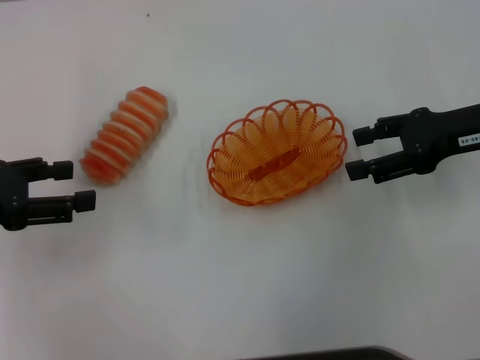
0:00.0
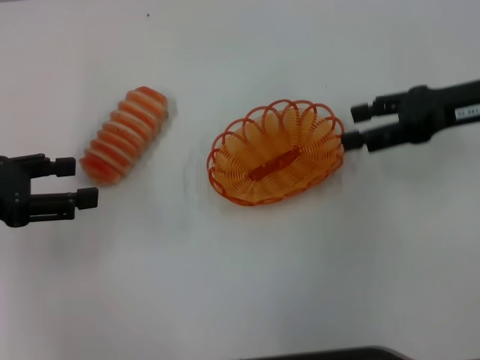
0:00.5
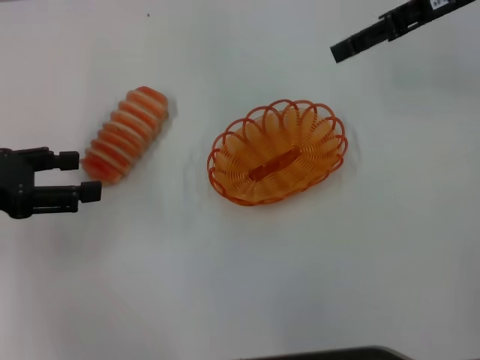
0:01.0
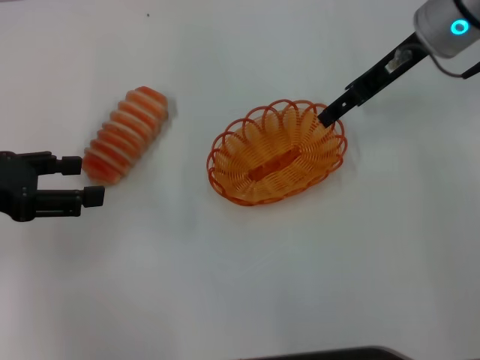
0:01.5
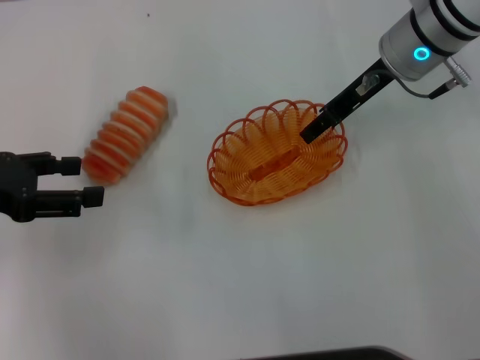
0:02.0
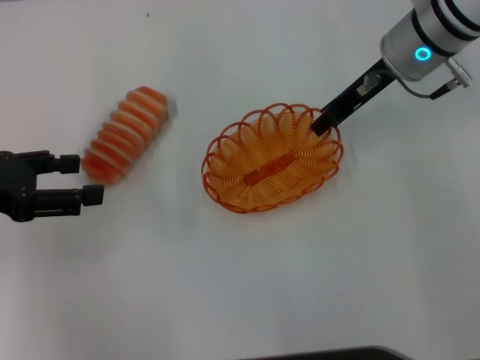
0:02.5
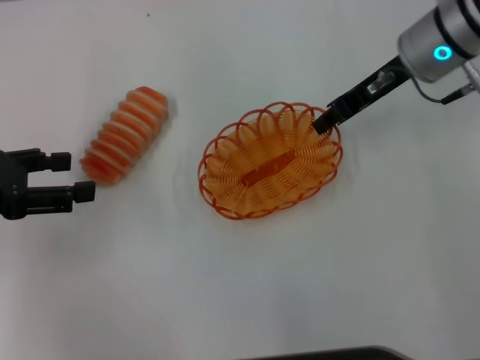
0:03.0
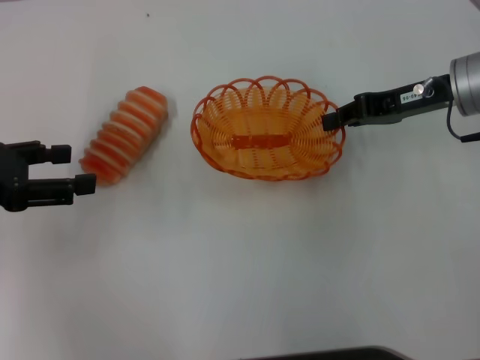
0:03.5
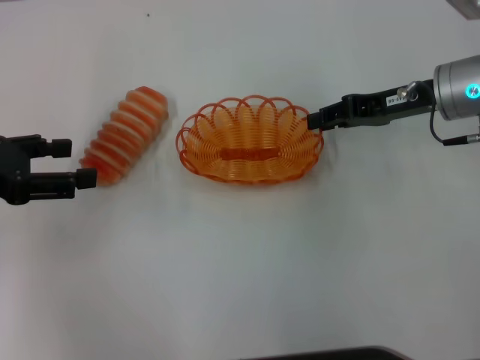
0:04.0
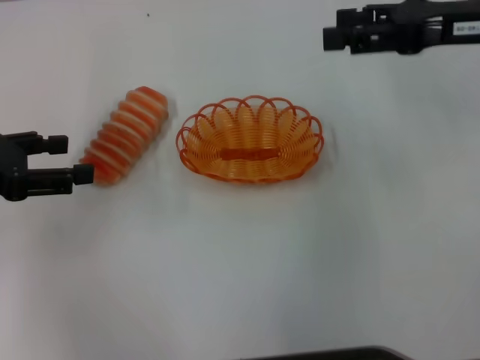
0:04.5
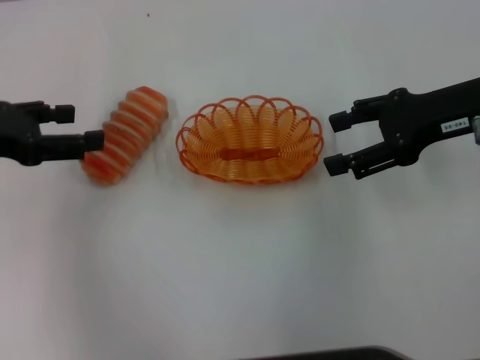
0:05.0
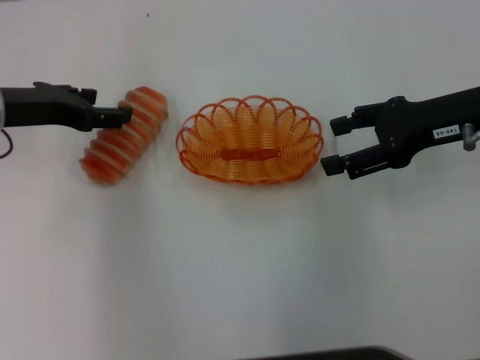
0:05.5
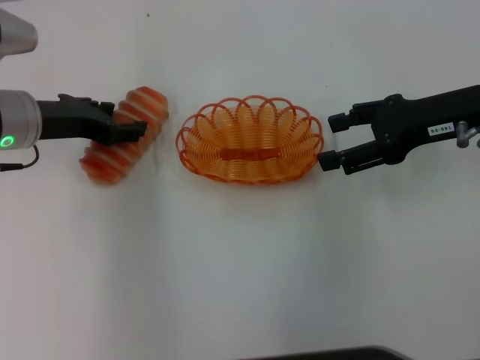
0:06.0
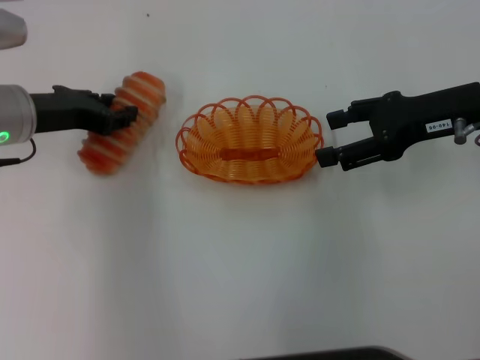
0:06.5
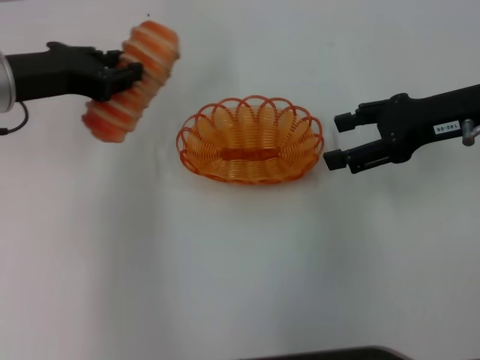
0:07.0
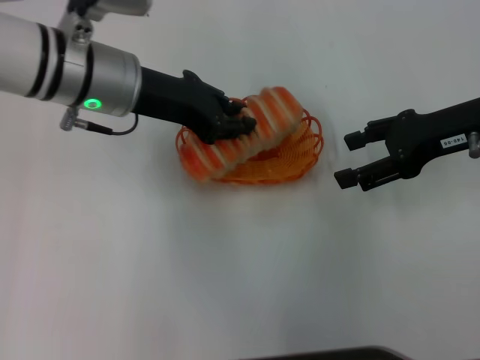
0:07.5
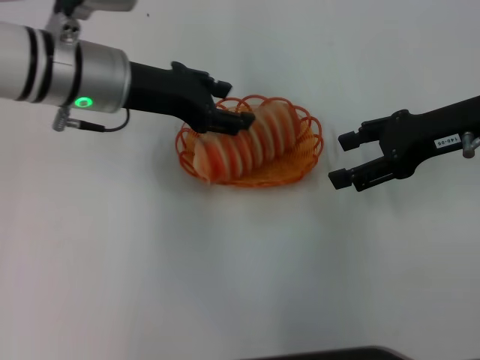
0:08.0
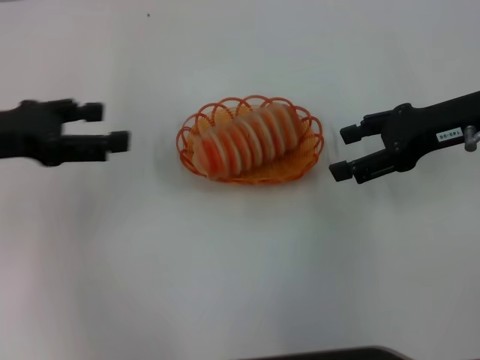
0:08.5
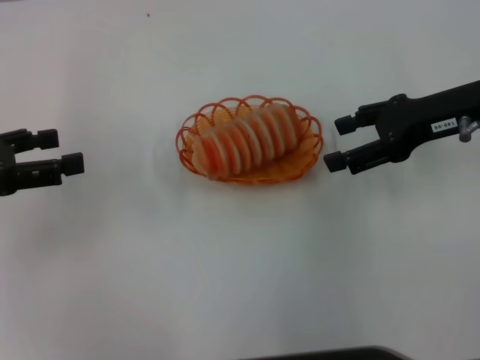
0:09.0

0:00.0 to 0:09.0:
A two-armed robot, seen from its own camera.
Step, 0:00.0 to 0:03.0: Pick up the basket with the right gripper.
Step, 0:03.5 to 0:04.0: Place the basket in the center of view with the right gripper.
Step, 0:04.5 to 0:06.5: Pick up the long bread with the left gripper.
Step, 0:07.0 to 0:07.5: Place the long bread into the basket with the left gripper.
0:00.0 to 0:02.0: The right gripper travels to the left and forward by about 15 cm.
0:02.0 to 0:04.5: The right gripper shifts some 10 cm to the right and backward, and closes and opens again.
0:04.5 to 0:07.0: The left gripper goes about 10 cm to the right and forward, and closes its fingers, while the right gripper heads downward, covering approximately 5 cm, and opens.
0:07.0 to 0:09.0: The left gripper heads to the left and backward, covering approximately 10 cm, and opens its fingers.

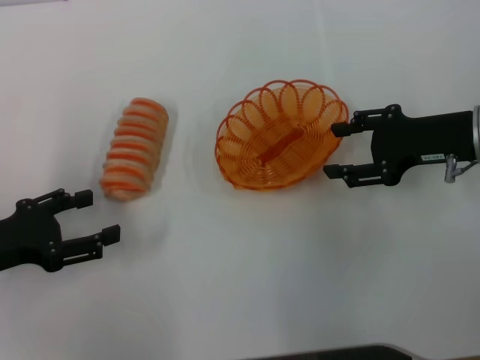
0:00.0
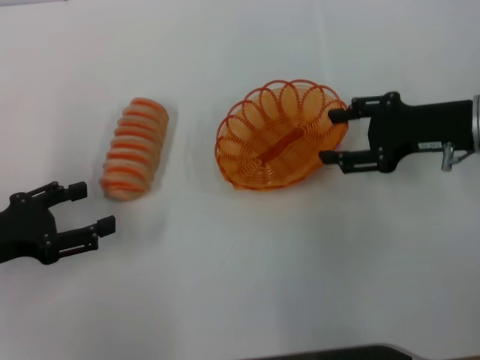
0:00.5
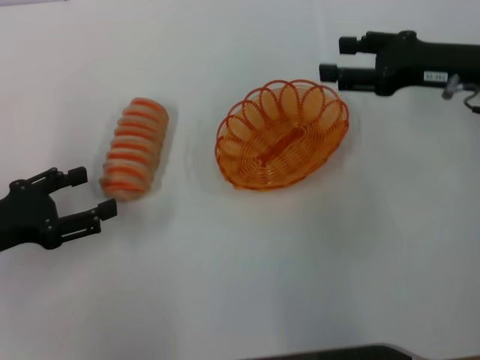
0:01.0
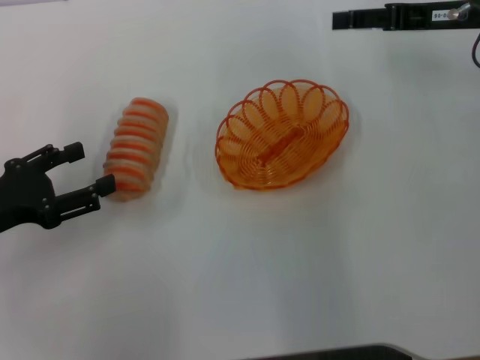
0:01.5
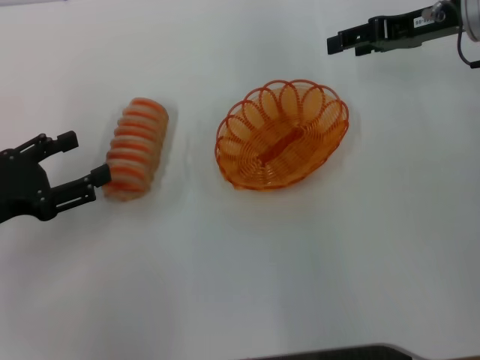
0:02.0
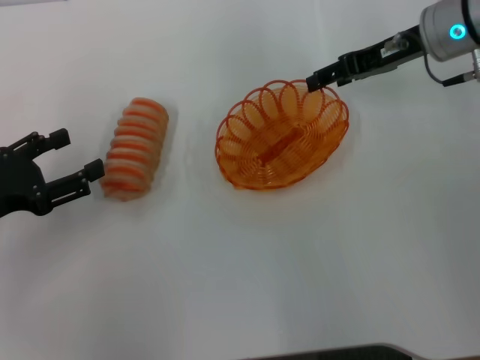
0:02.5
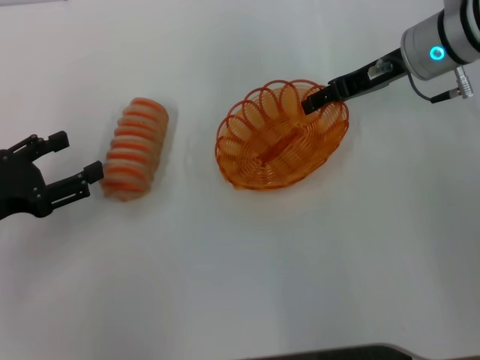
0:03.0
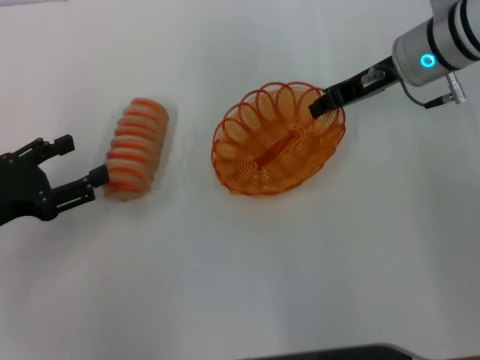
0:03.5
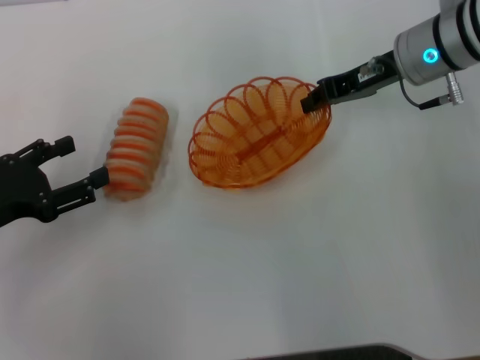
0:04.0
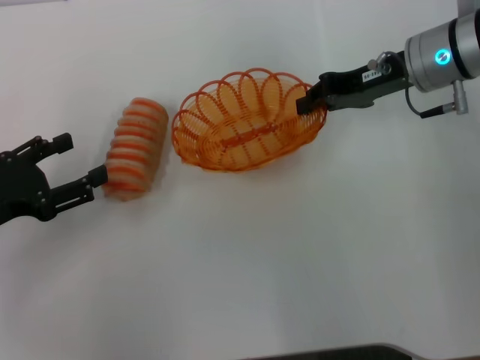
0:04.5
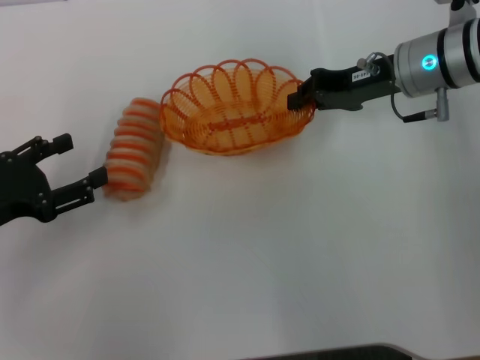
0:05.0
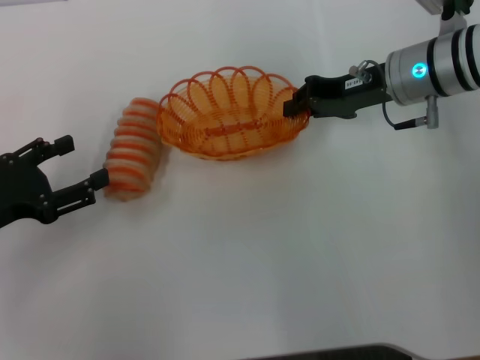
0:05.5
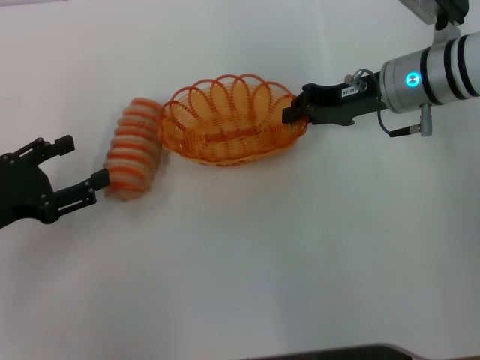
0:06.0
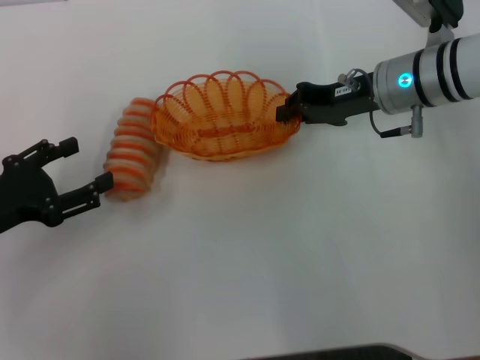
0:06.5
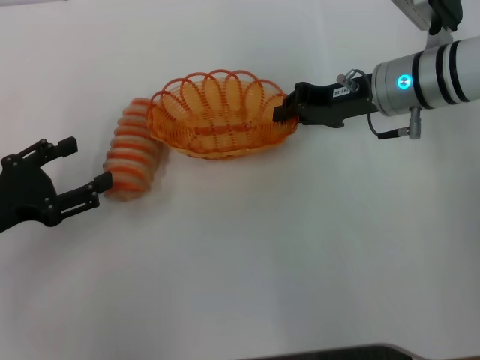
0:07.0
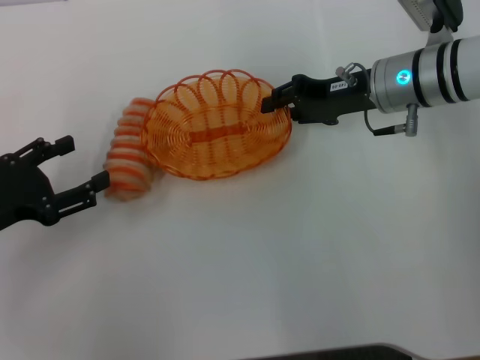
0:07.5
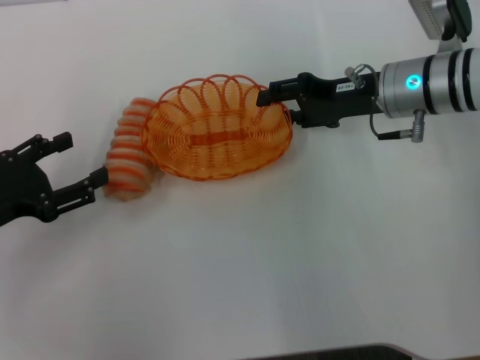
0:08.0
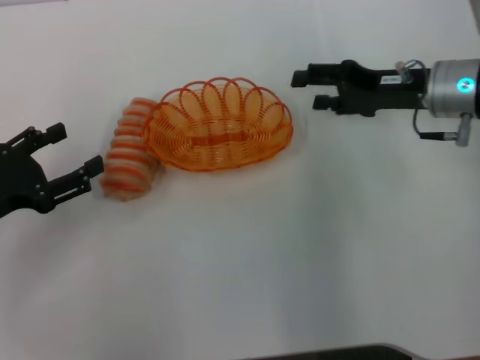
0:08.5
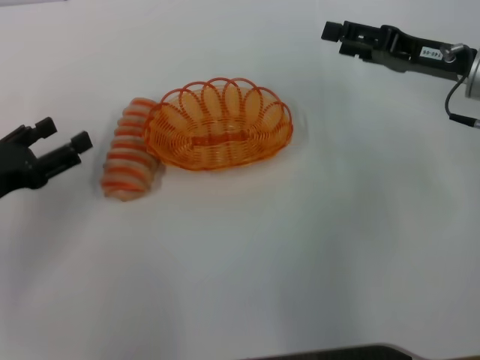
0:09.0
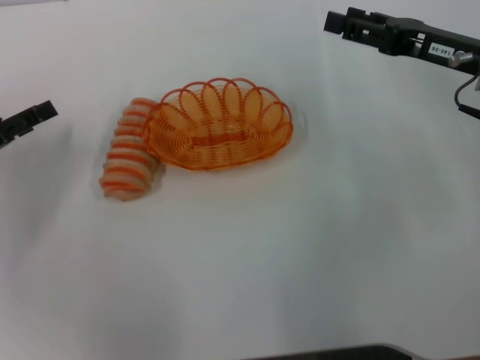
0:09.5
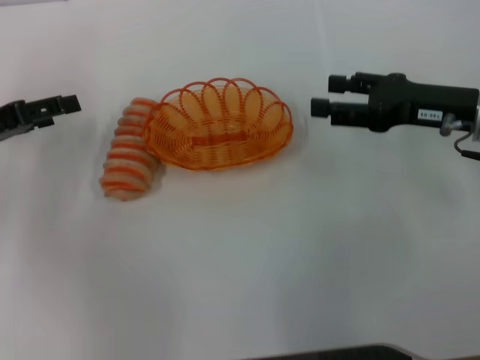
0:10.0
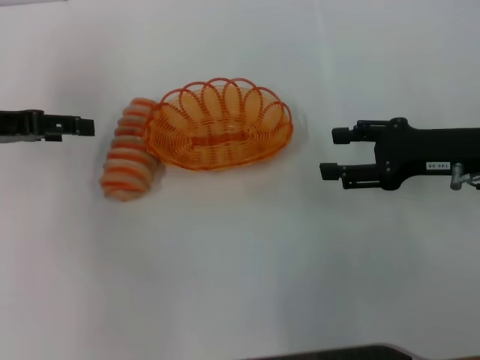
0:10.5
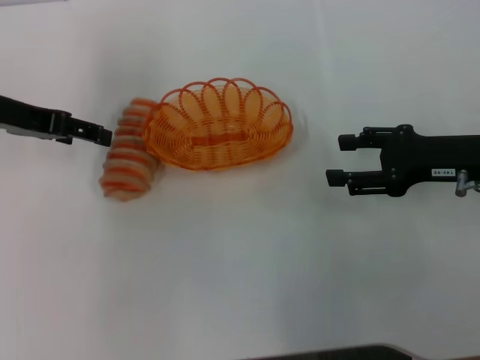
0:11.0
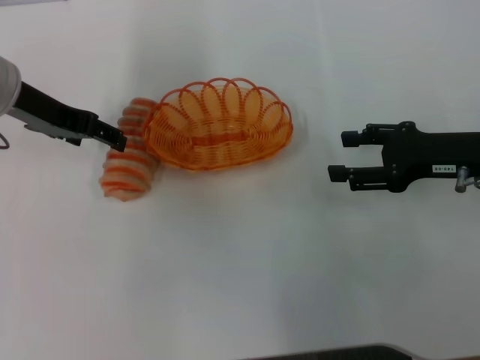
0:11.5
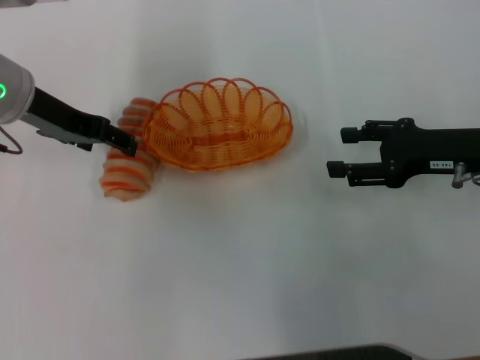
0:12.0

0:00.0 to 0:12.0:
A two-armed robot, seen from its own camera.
Step, 0:00.0 to 0:04.0: Pick up the basket with the right gripper.
Step, 0:04.5 to 0:08.5: Place the basket in the center of view with the right gripper.
0:00.0 to 0:02.0: The right gripper shifts roughly 10 cm forward and upward.
0:02.0 to 0:04.0: The right gripper moves to the left, approximately 5 cm, and closes up.
0:06.0 to 0:08.0: The right gripper opens up.
0:08.0 to 0:10.0: The left gripper goes some 10 cm forward. Meanwhile the right gripper is displaced to the right and backward by roughly 10 cm.
0:10.0 to 0:12.0: The left gripper shifts some 10 cm to the right and forward.

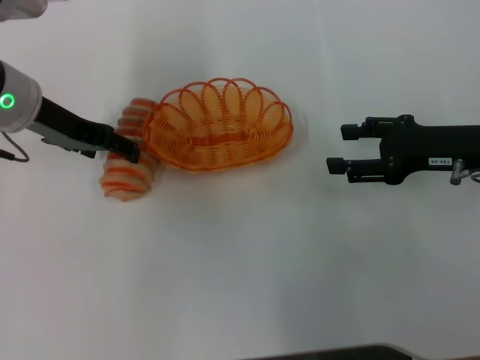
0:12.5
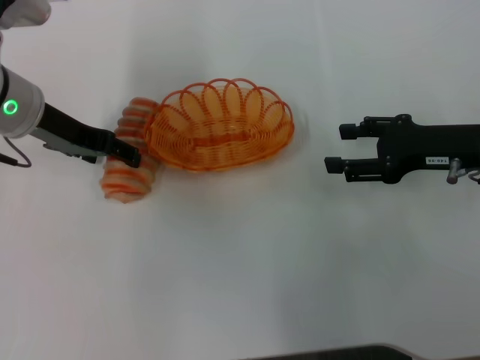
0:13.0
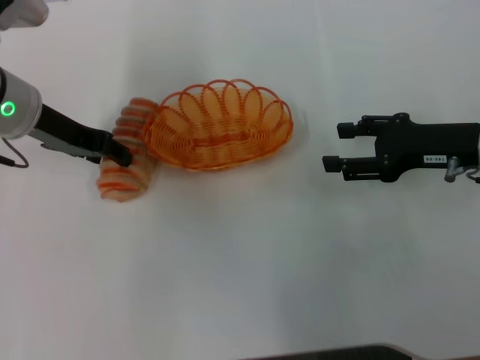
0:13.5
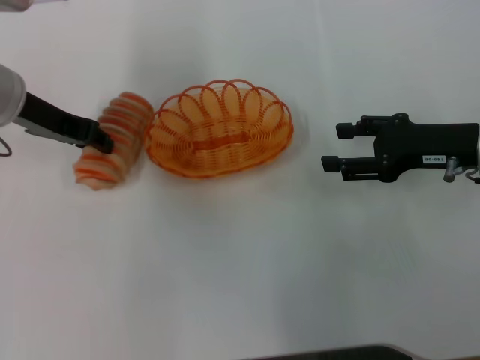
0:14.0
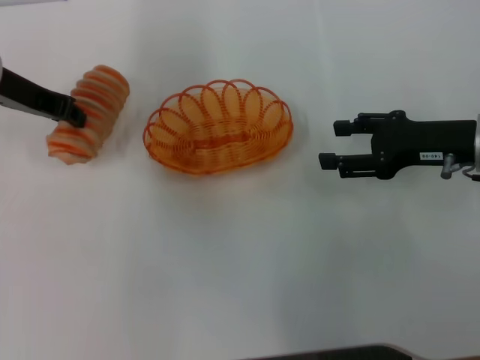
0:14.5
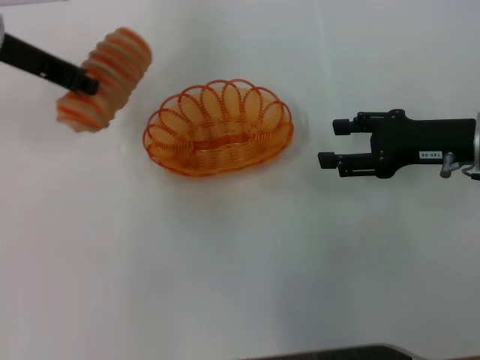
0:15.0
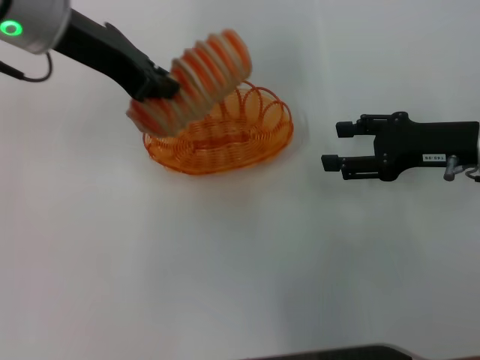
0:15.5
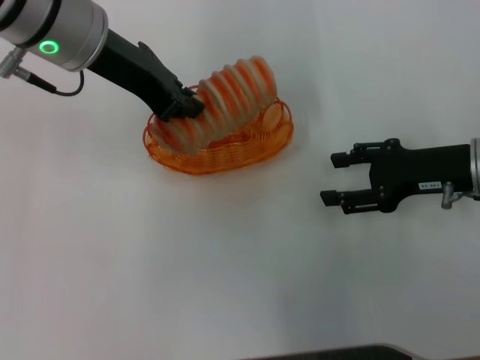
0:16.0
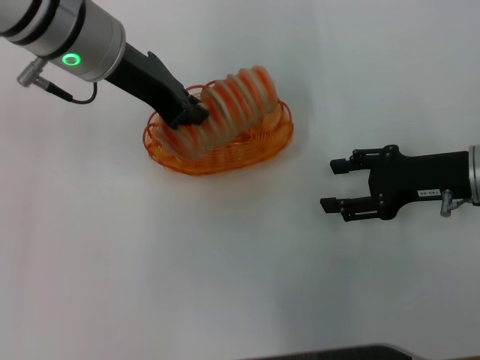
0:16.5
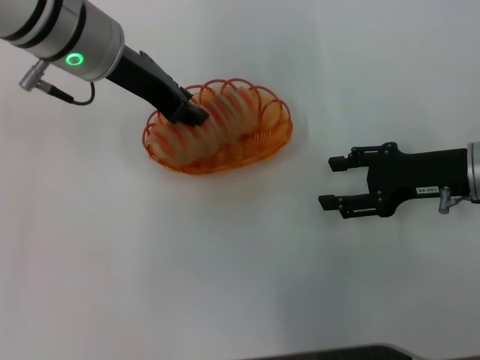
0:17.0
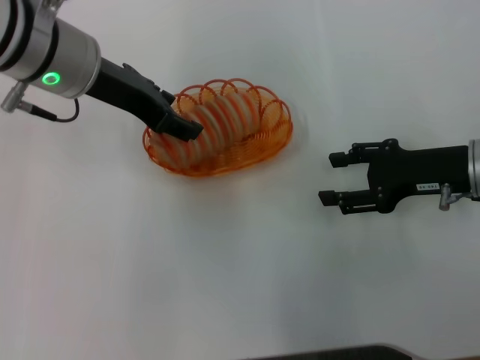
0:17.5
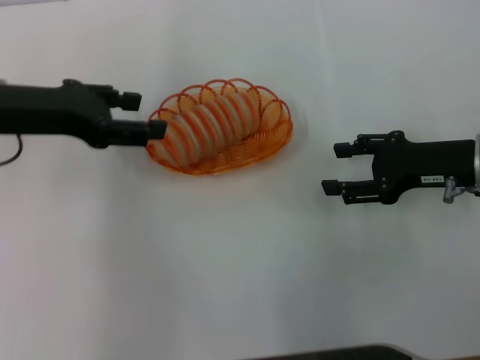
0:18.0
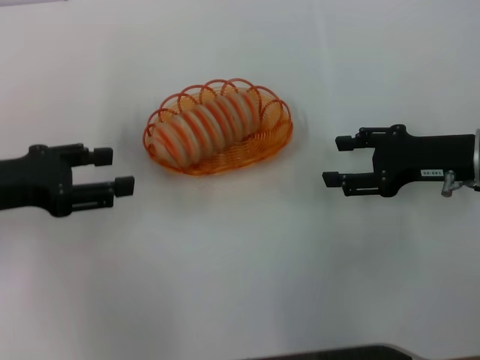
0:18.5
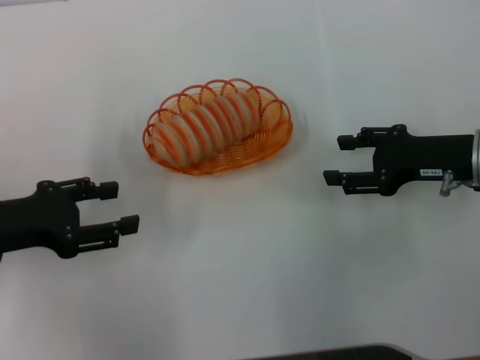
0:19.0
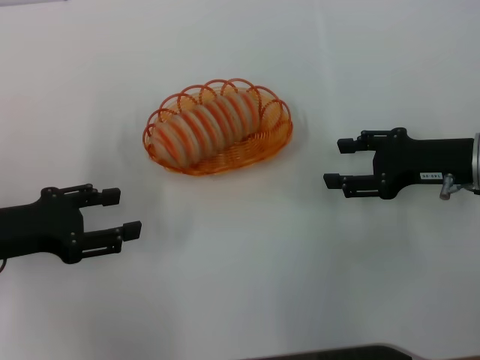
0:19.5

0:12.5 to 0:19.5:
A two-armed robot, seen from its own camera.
Step, 0:14.5 to 0:18.0: Place the long bread into the basket with the left gripper.
0:12.5 to 0:14.5: The left gripper closes up.
0:14.5 to 0:16.0: The left gripper moves to the right, roughly 10 cm.
0:16.0 to 0:17.5: The left gripper opens up.
0:17.5 to 0:19.5: The left gripper travels to the left, backward and downward by approximately 20 cm.
